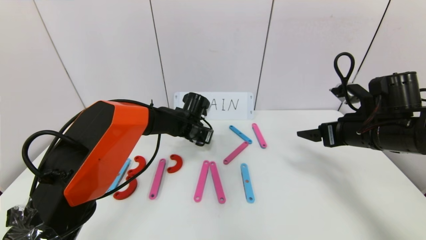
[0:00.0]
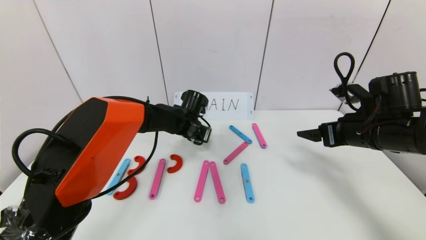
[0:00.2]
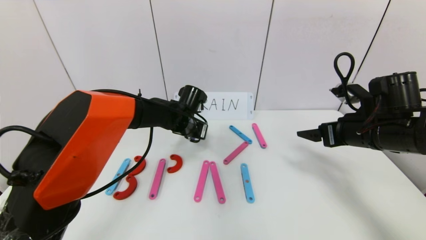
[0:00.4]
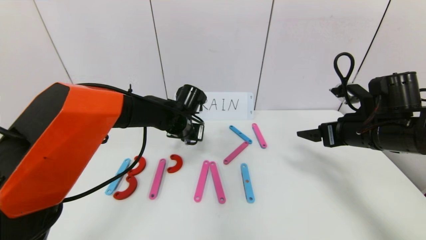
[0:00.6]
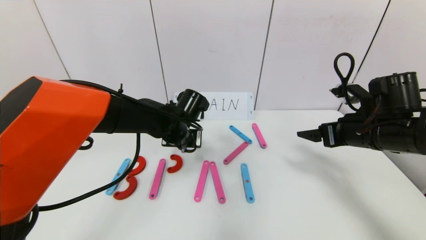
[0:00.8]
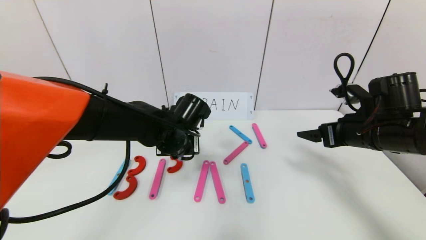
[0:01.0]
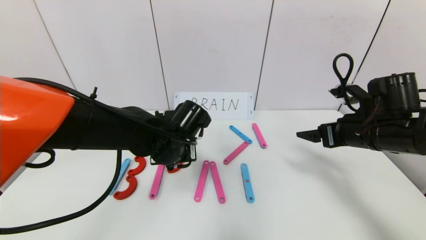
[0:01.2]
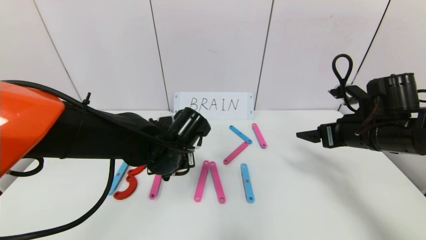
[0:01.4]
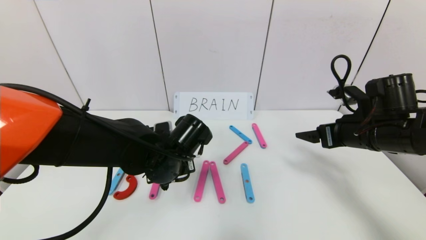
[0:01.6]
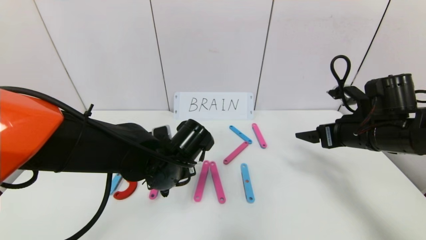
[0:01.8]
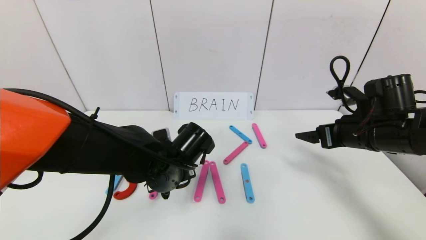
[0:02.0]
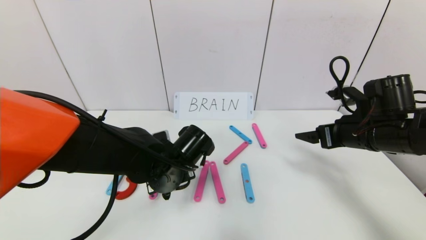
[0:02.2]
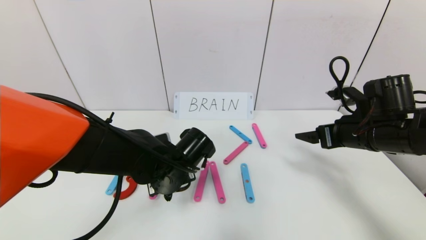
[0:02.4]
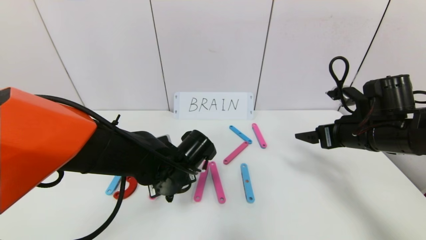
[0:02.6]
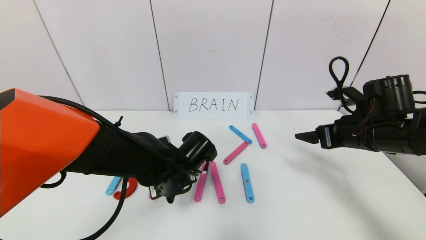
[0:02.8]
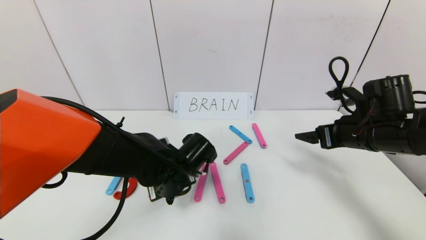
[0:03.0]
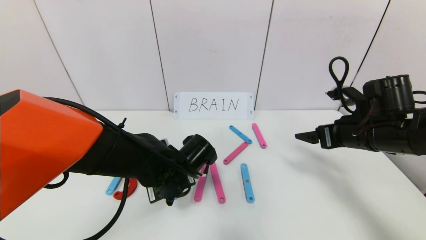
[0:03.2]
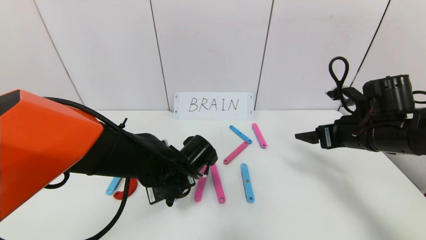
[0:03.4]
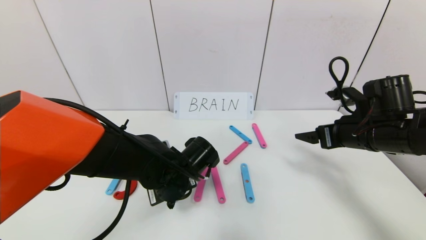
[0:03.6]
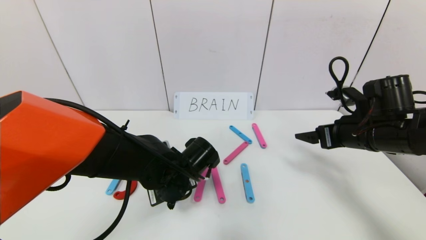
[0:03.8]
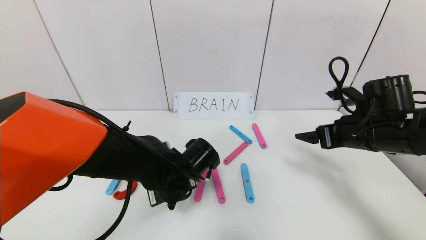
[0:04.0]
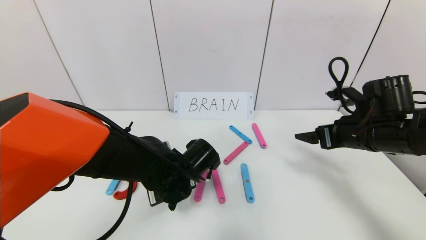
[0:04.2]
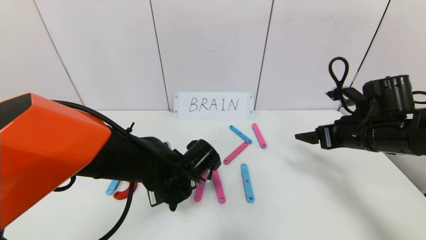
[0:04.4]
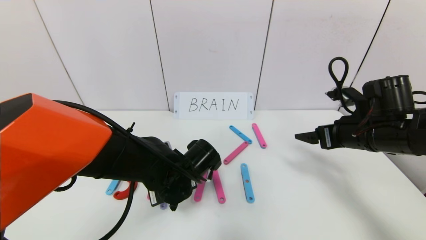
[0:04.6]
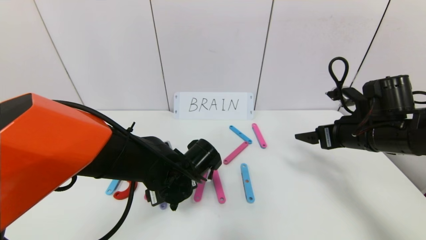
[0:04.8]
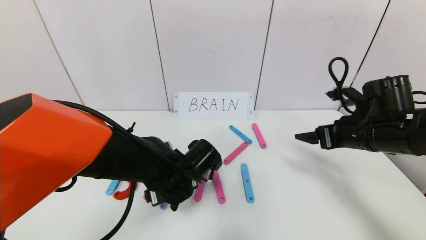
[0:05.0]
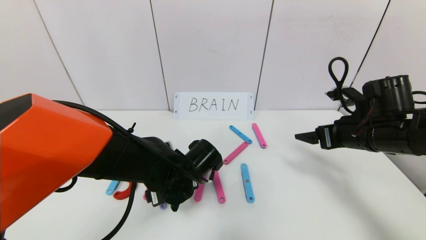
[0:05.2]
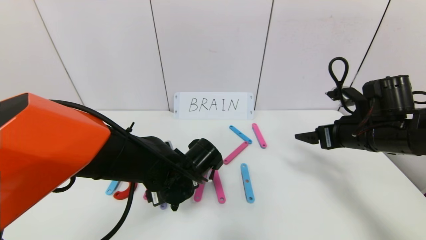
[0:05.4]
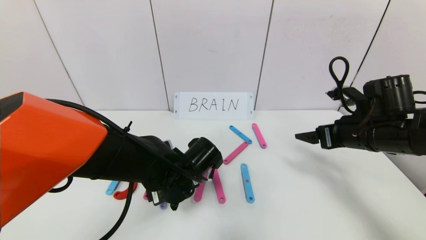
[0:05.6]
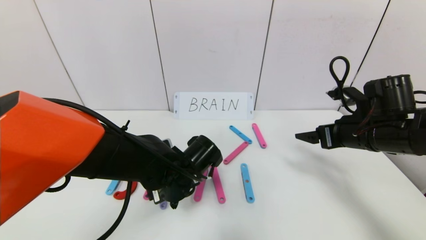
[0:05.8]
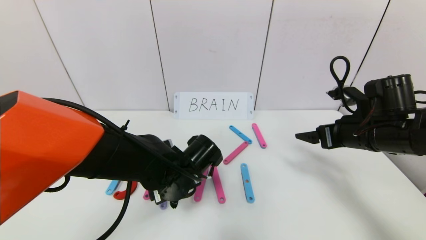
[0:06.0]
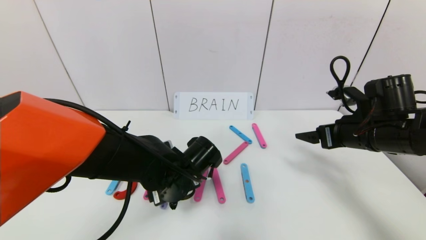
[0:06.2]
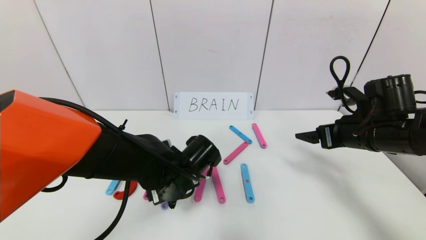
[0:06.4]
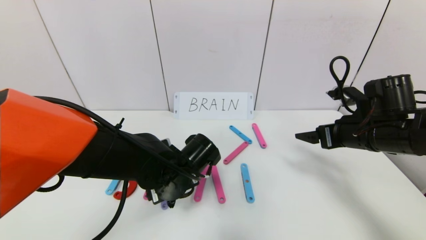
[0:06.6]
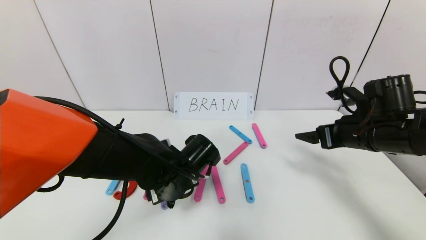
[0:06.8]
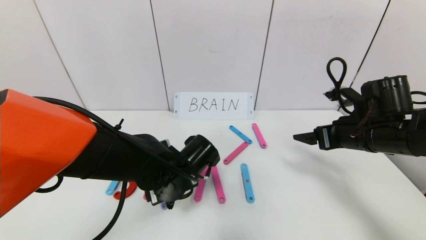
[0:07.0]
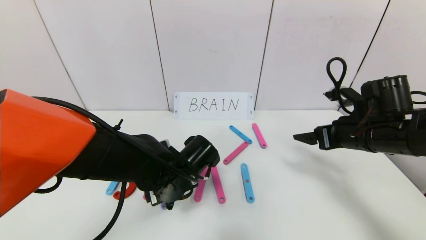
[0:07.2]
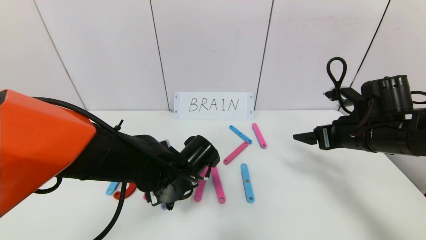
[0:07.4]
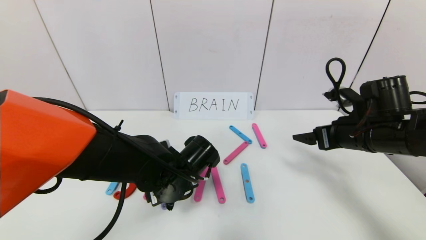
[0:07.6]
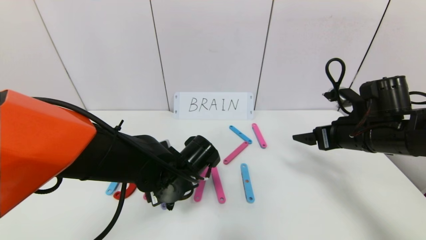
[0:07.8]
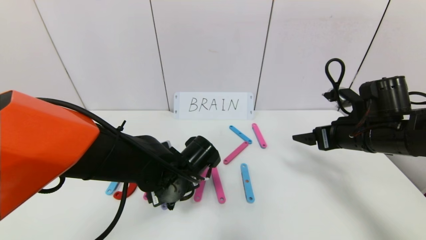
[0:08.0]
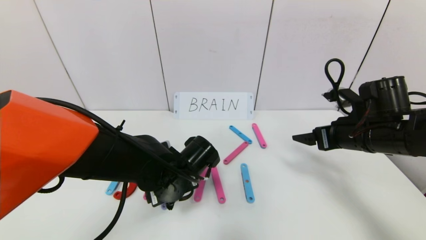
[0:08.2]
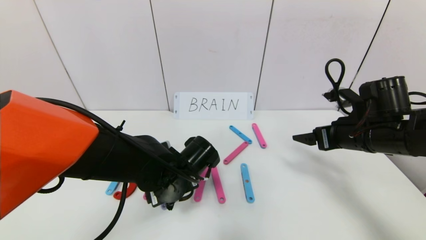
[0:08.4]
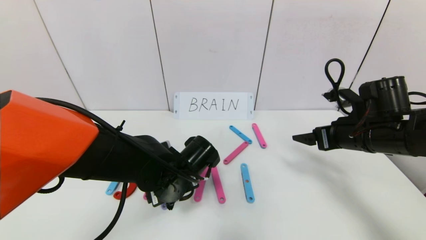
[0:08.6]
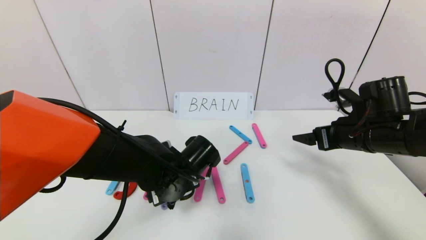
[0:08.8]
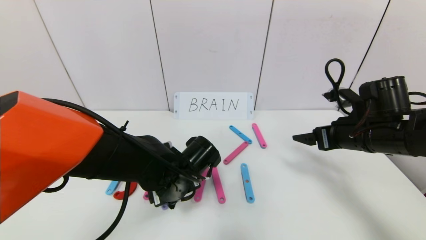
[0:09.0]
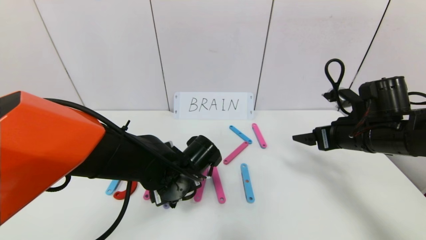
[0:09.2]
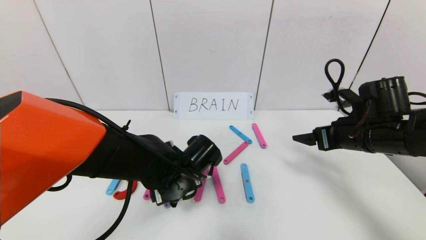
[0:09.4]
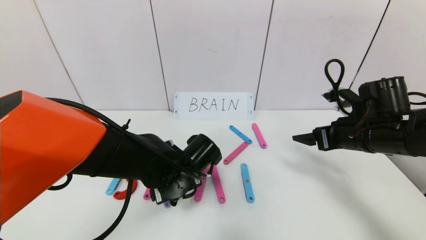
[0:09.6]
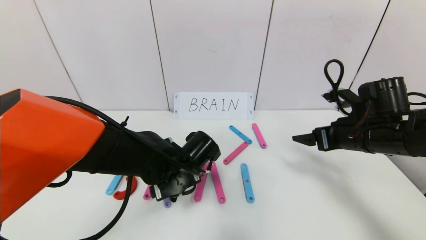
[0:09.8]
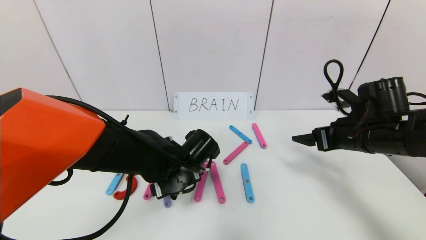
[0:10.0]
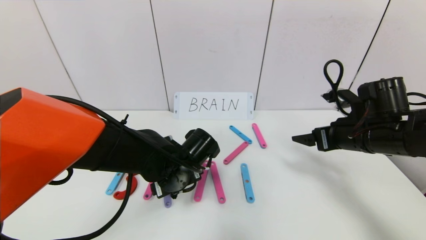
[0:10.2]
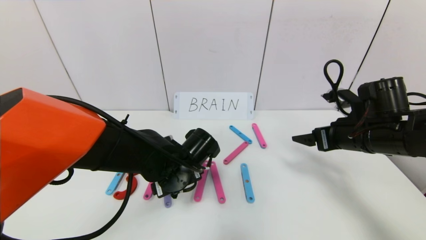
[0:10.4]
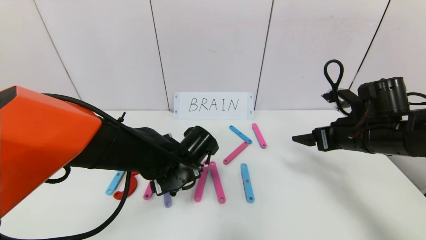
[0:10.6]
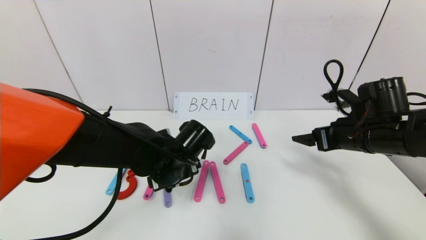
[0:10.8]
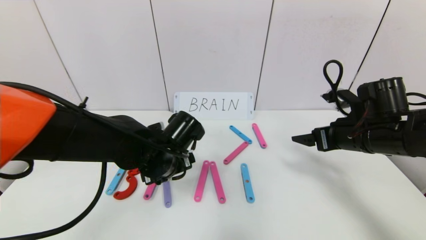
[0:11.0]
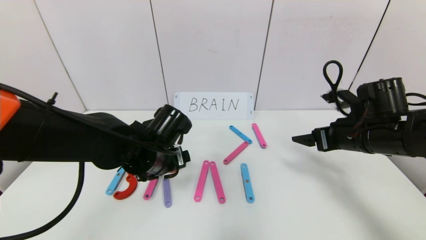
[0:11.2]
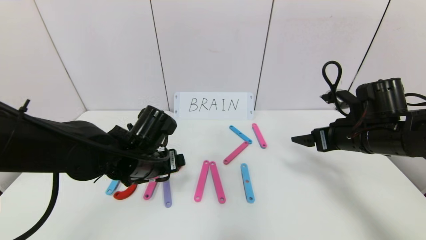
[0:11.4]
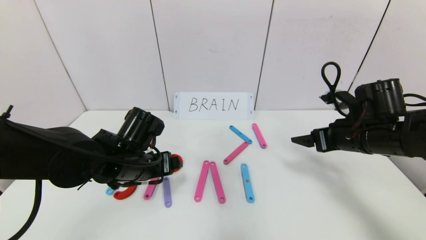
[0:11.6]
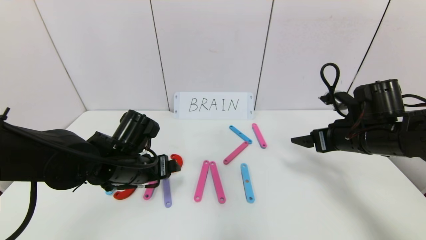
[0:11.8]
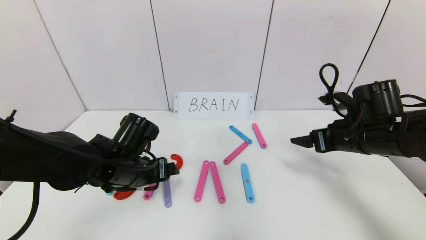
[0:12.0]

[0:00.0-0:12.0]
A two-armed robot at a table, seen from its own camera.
Task of the whole recording: rearrange the word baai as brain.
Step, 0:00.0 to 0:11.6: Place the character R between first character B and third character A.
0:00.0 to 0:01.6: The left gripper is displaced backward by about 20 cm.
0:01.6 to 0:03.0: There are only small adjustments of the grippers.
0:03.0 to 0:04.4: The left gripper opens its fingers.
0:04.4 to 0:06.0: The left gripper opens its fingers.
0:06.0 to 0:09.0: Neither gripper changes place.
0:09.0 to 0:10.4: The grippers move only a little.
0:10.4 to 0:12.0: The left gripper heads to the left, covering some 10 cm.

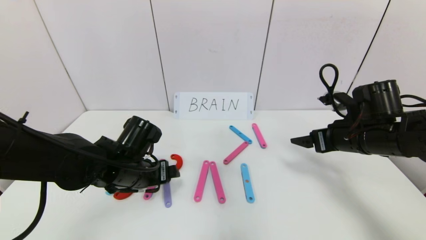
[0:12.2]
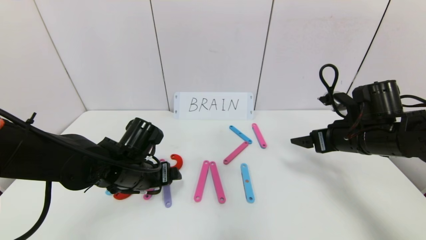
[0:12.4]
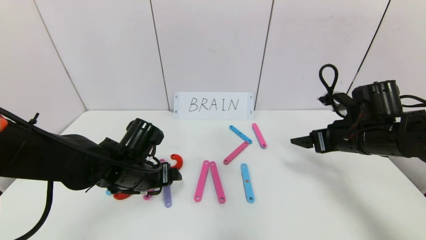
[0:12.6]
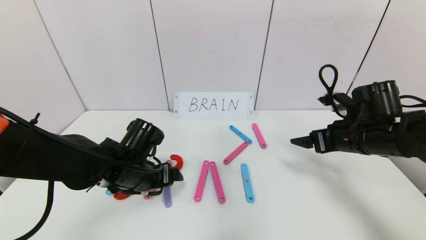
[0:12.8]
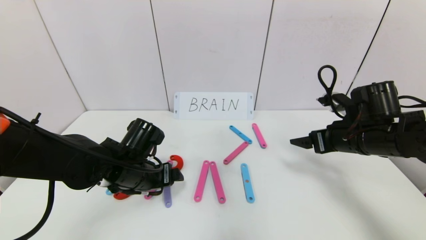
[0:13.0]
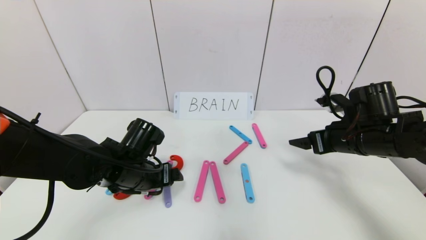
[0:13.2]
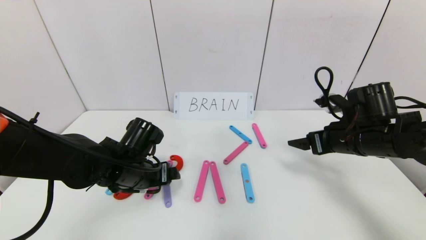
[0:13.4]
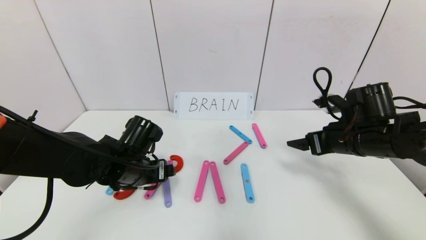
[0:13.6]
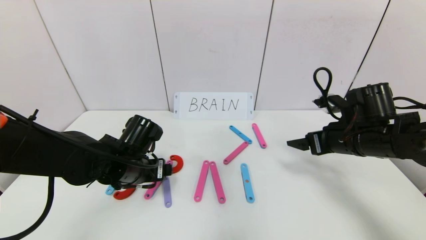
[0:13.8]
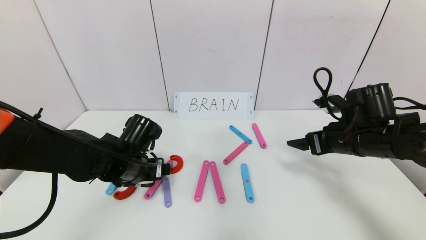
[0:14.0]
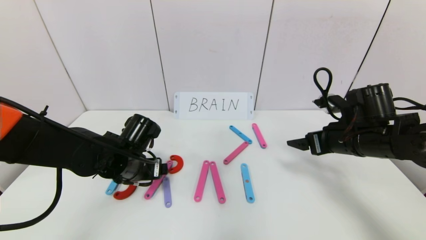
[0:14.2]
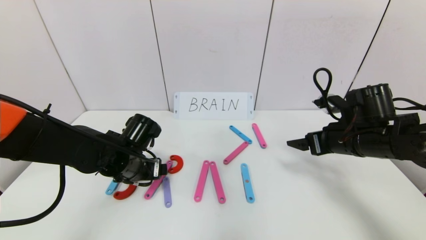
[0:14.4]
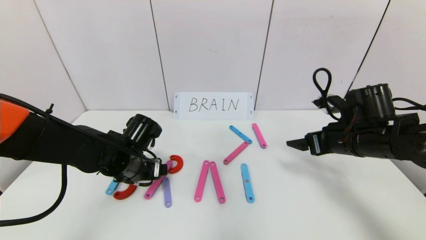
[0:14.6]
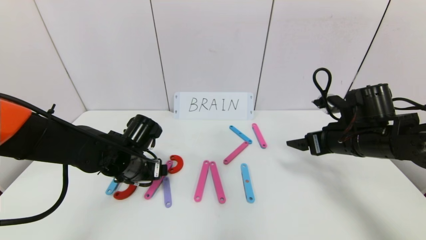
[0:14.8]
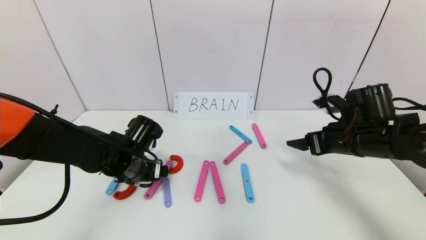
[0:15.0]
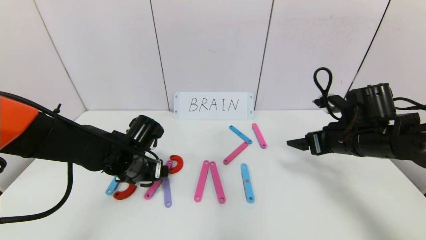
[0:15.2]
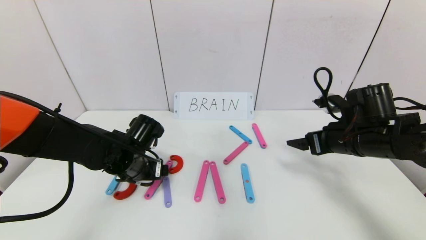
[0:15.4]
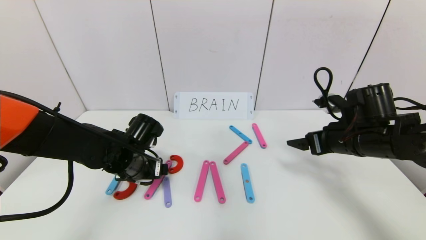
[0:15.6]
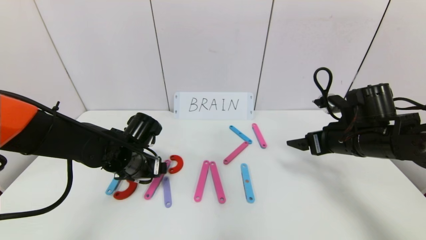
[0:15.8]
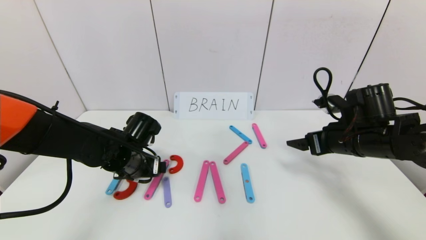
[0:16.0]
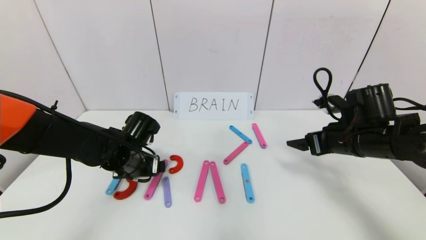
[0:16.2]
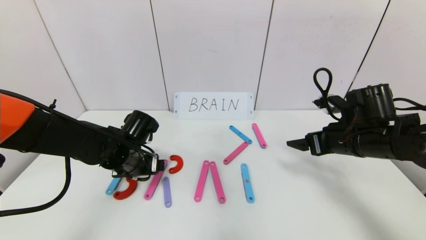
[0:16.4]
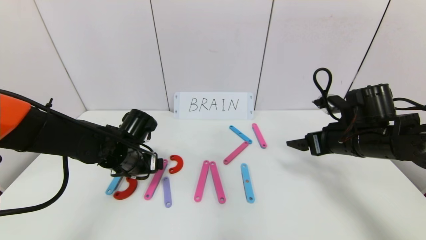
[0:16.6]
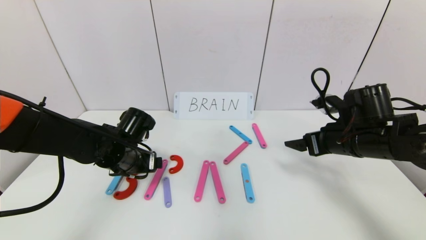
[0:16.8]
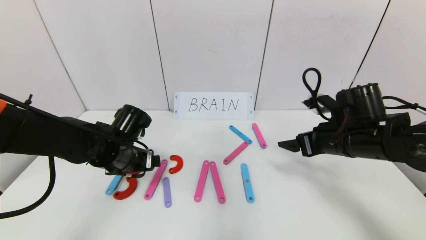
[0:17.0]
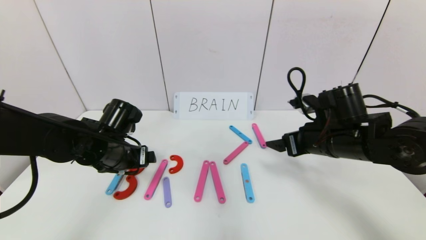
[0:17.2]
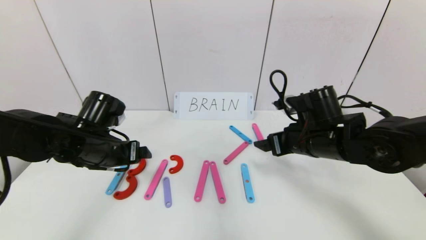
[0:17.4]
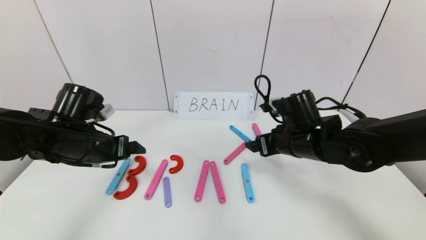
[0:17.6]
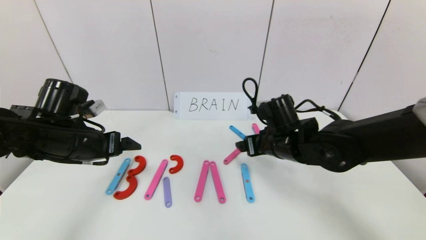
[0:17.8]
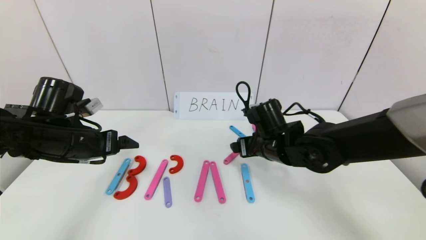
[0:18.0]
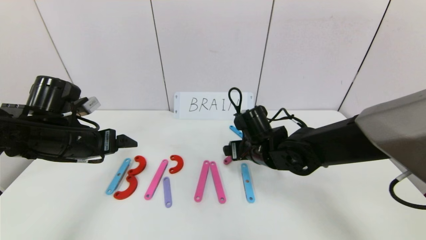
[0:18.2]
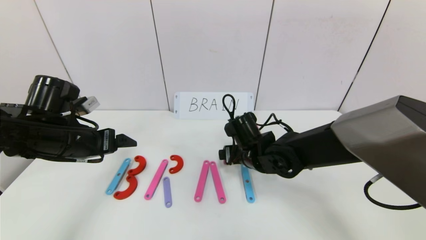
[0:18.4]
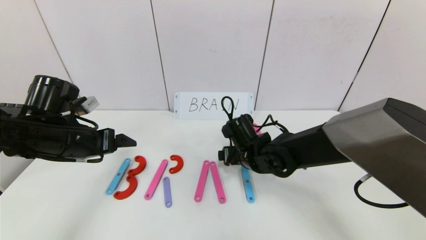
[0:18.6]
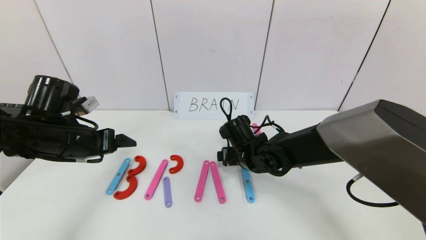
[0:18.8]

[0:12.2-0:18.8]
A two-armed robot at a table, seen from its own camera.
Task of the whole recording: rearrange the word baai as brain.
0:12.2 to 0:15.4: The grippers make only small movements.
0:15.4 to 0:17.2: The right gripper shifts about 5 cm to the left.
0:17.2 to 0:18.8: The right gripper moves to the left and downward, approximately 15 cm. Meanwhile the left gripper heads to the left and upward, covering approximately 10 cm.
